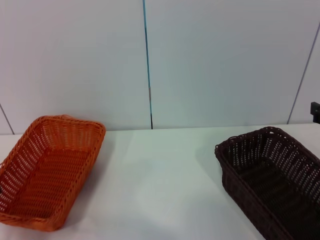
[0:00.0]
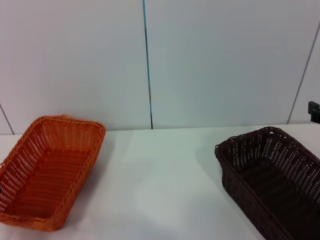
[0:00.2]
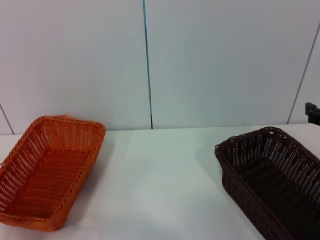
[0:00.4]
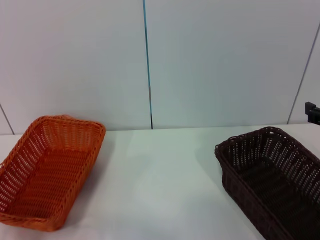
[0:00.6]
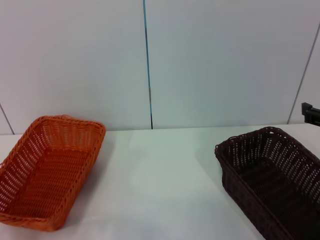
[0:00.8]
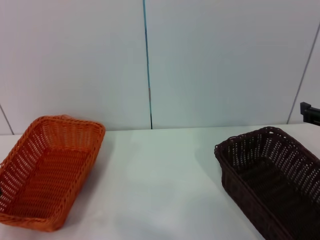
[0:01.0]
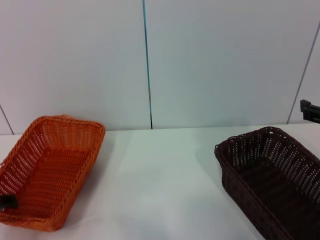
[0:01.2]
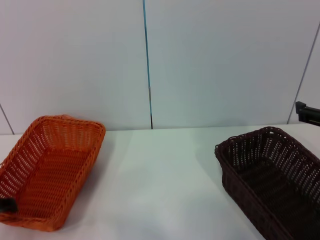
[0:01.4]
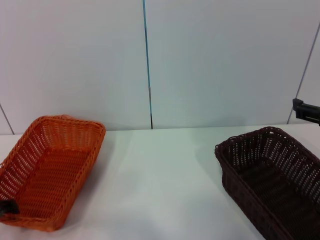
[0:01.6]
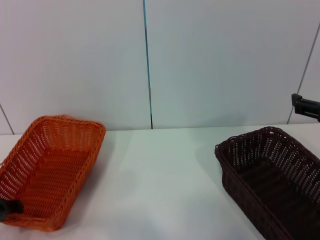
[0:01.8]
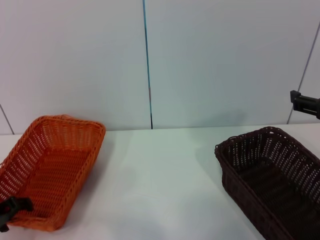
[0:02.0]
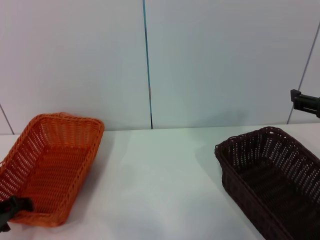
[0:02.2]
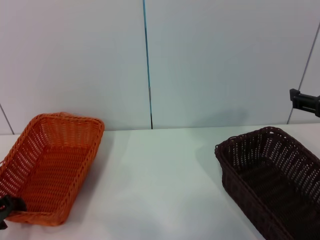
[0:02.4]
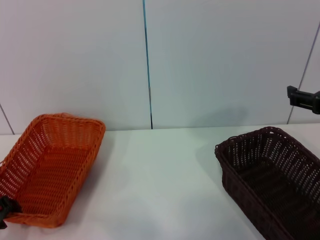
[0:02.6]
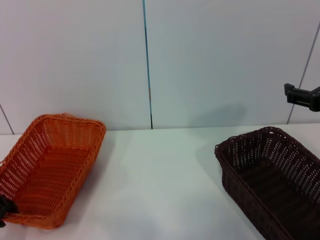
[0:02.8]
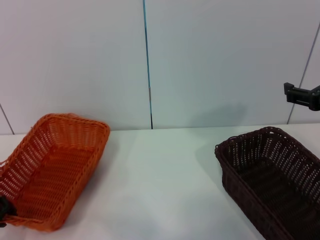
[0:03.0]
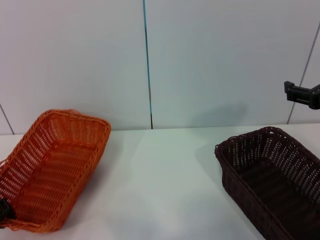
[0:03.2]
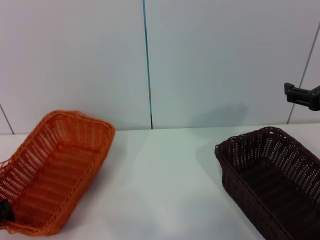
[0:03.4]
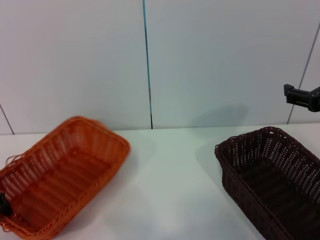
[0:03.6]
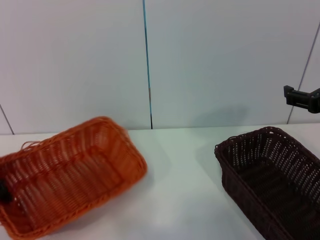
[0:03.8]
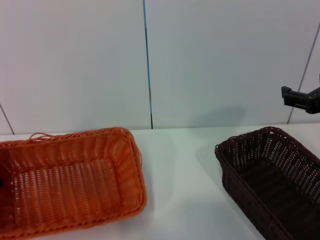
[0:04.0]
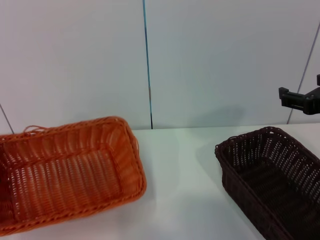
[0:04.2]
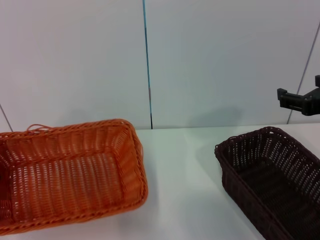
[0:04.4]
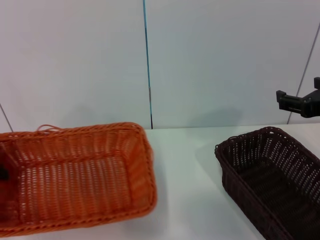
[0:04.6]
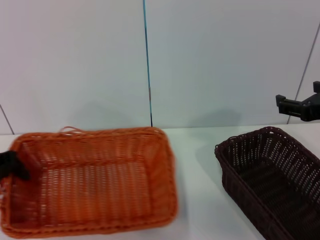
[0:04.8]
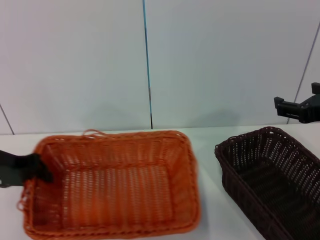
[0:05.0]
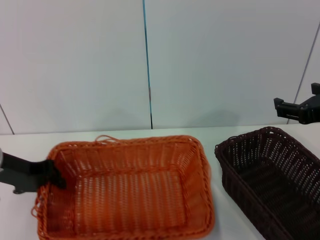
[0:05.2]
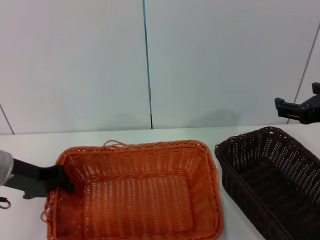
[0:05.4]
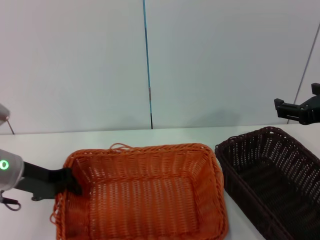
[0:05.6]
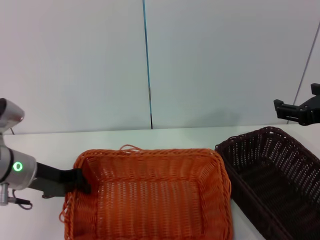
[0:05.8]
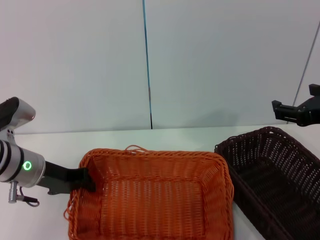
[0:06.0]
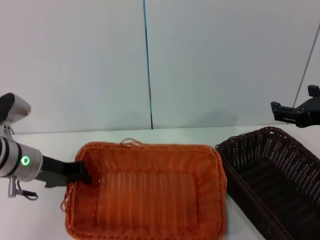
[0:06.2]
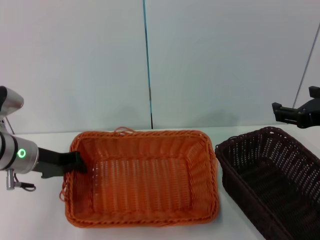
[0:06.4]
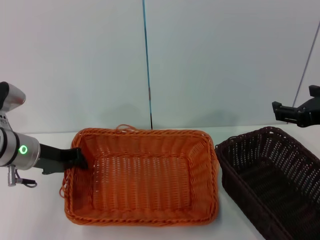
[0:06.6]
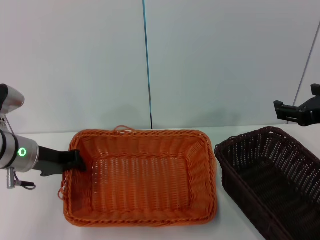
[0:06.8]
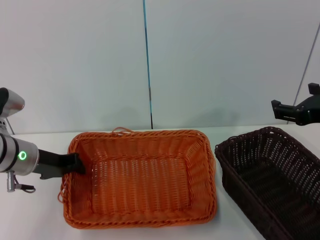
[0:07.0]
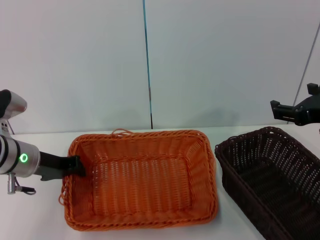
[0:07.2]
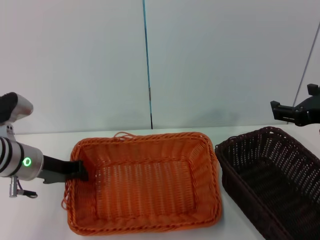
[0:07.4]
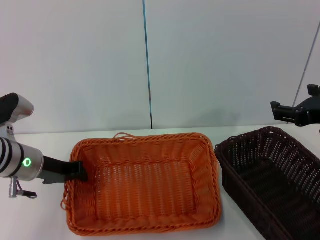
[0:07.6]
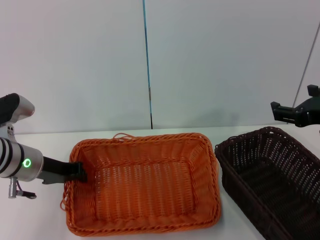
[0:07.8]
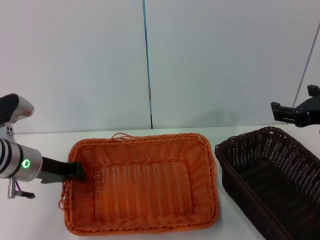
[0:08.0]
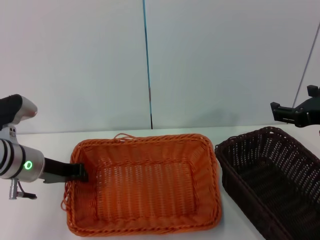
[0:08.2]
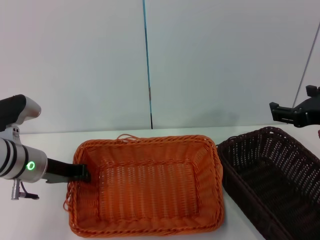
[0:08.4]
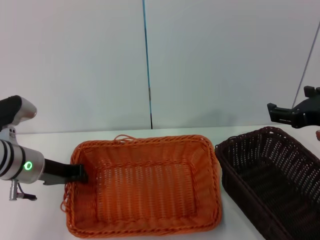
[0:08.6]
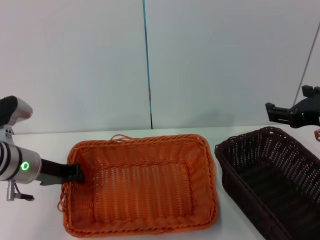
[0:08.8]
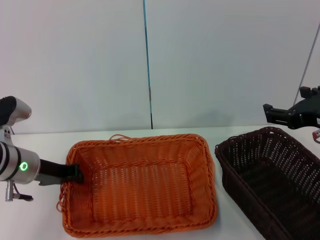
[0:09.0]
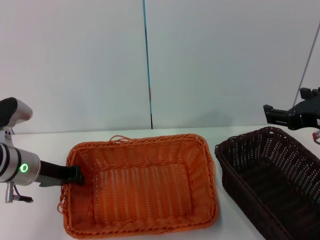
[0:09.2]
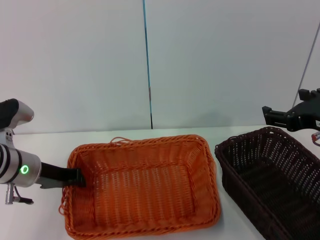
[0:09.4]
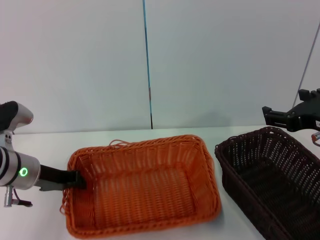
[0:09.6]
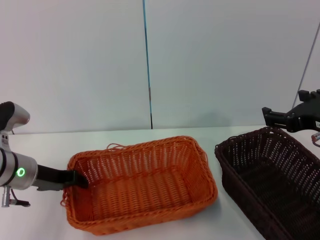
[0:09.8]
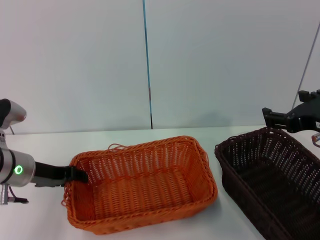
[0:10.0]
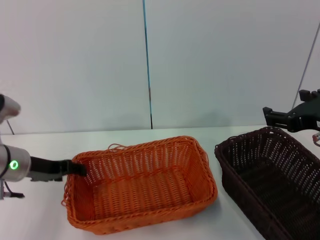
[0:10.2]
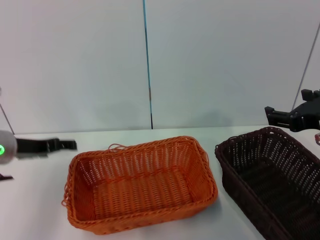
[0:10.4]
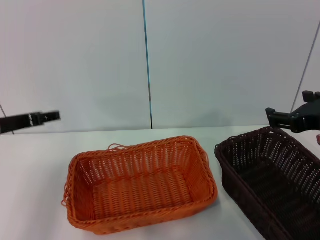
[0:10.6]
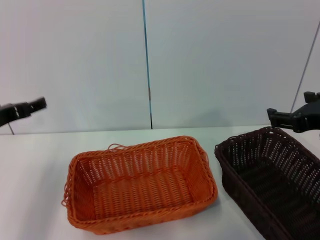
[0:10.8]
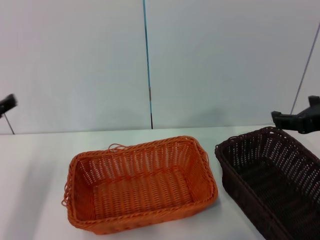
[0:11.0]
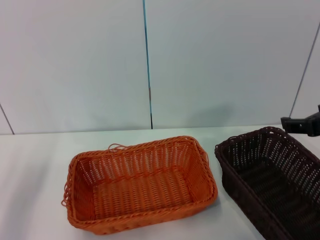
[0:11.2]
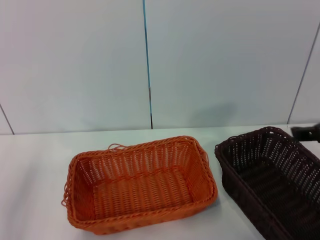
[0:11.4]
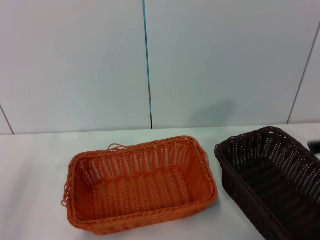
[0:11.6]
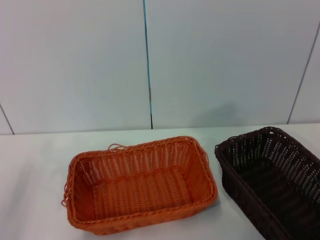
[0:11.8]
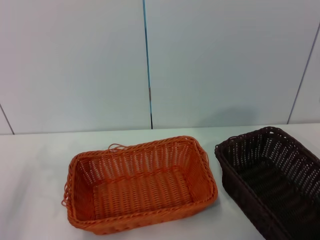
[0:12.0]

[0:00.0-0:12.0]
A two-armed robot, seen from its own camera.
Step, 0:00.0 to 0:03.8: Pick up the light basket with the left gripper.
Step, 0:04.0 to 0:09.8: Place the light basket in the center of view with the left gripper.
0:01.6 to 0:03.0: The left gripper closes up.
0:03.0 to 0:04.4: The left gripper shifts some 10 cm upward.
0:04.4 to 0:06.0: The left gripper moves to the right, roughly 15 cm.
0:06.0 to 0:09.0: The grippers move only a little.
0:09.0 to 0:10.4: The left gripper opens.
0:10.4 to 0:12.0: The left gripper goes roughly 10 cm backward and to the left.

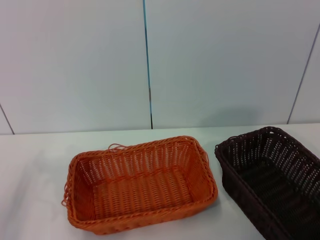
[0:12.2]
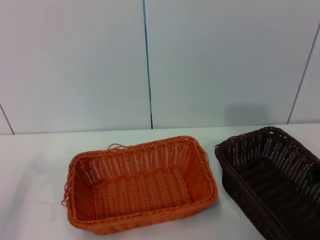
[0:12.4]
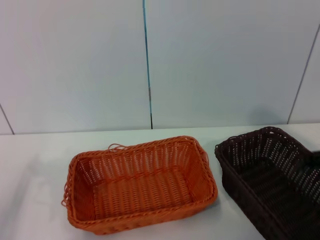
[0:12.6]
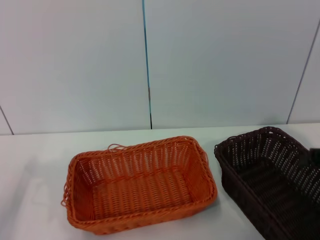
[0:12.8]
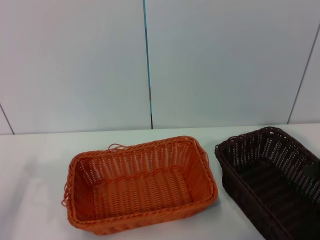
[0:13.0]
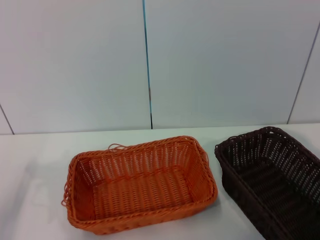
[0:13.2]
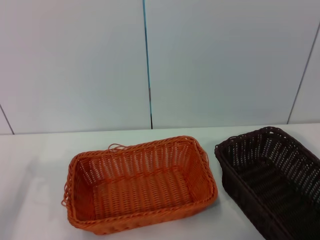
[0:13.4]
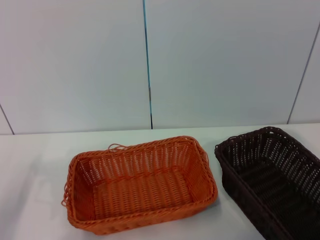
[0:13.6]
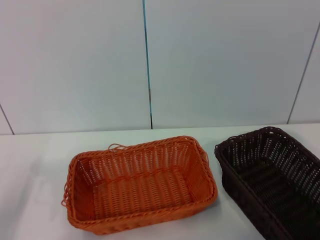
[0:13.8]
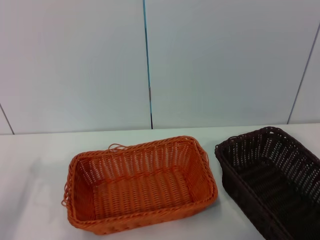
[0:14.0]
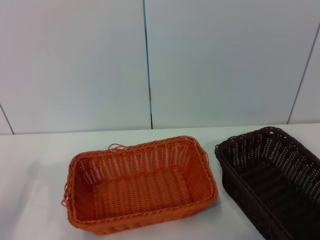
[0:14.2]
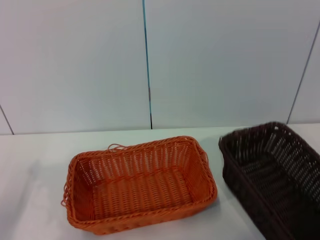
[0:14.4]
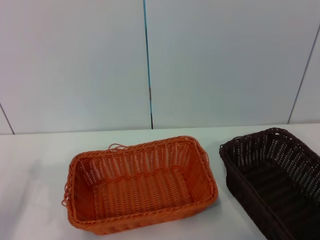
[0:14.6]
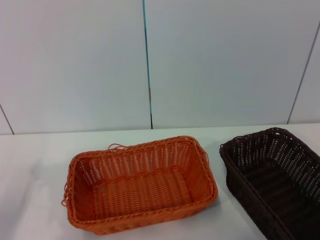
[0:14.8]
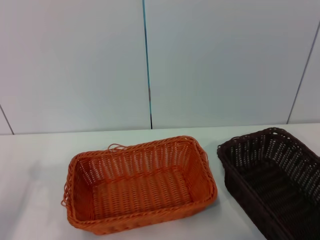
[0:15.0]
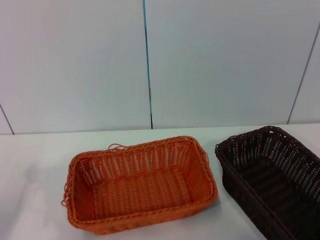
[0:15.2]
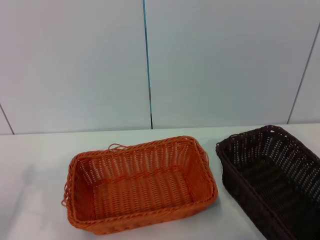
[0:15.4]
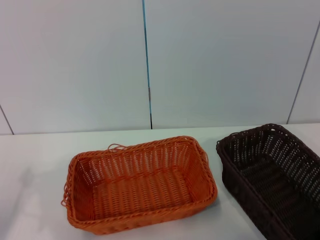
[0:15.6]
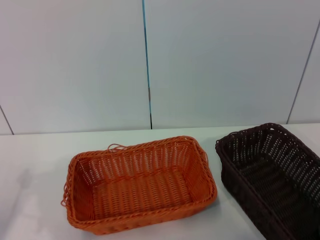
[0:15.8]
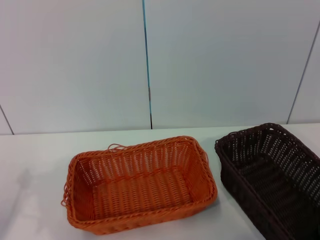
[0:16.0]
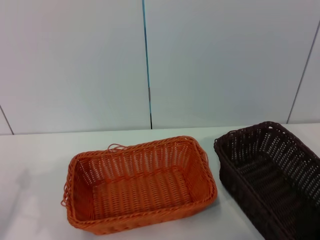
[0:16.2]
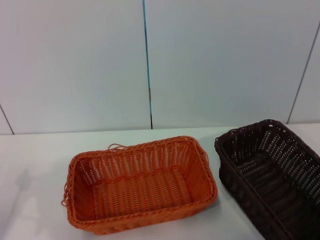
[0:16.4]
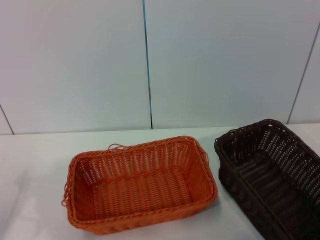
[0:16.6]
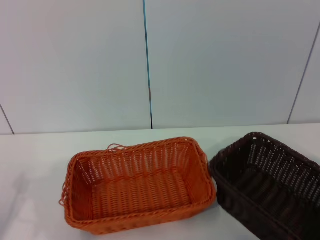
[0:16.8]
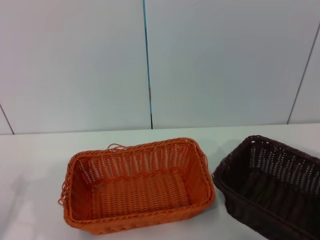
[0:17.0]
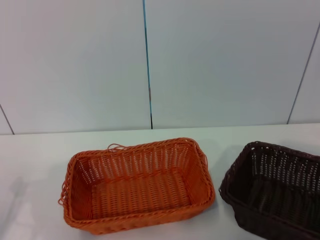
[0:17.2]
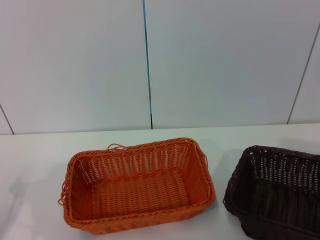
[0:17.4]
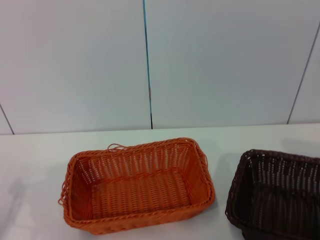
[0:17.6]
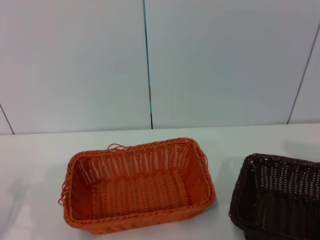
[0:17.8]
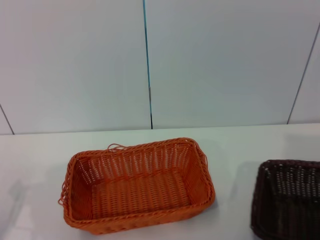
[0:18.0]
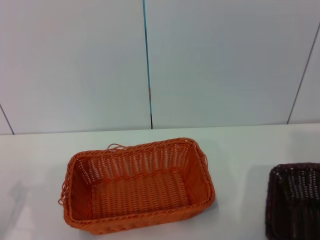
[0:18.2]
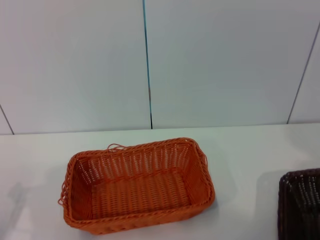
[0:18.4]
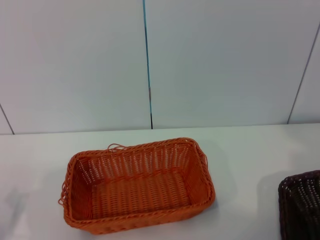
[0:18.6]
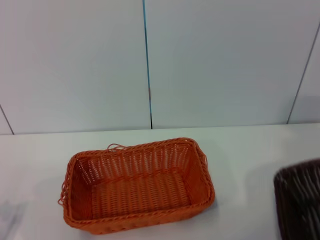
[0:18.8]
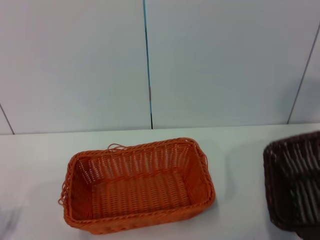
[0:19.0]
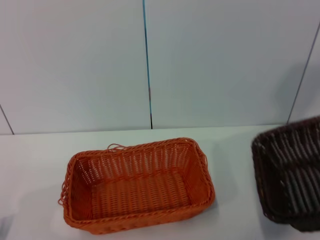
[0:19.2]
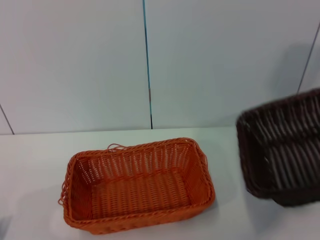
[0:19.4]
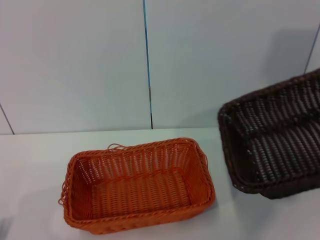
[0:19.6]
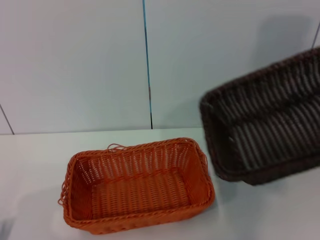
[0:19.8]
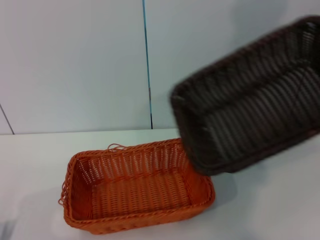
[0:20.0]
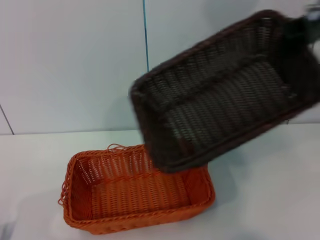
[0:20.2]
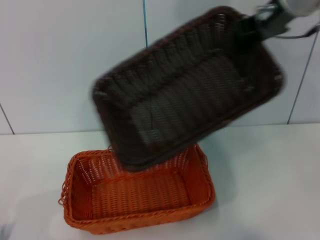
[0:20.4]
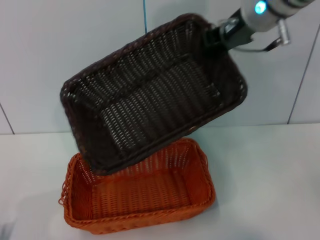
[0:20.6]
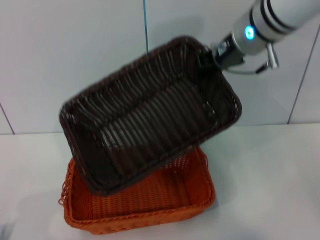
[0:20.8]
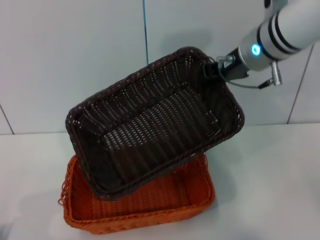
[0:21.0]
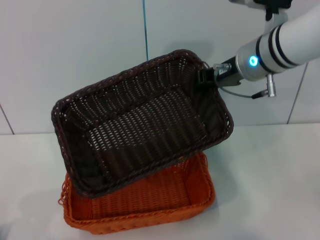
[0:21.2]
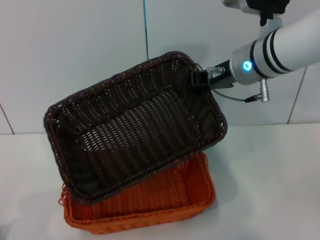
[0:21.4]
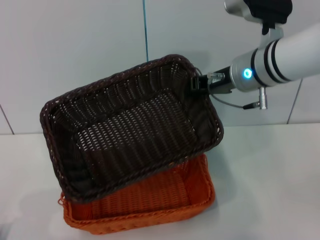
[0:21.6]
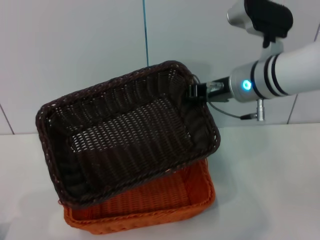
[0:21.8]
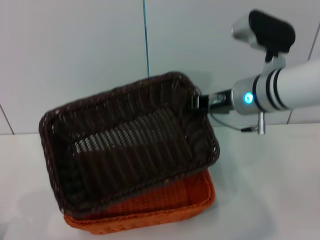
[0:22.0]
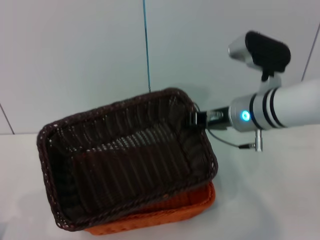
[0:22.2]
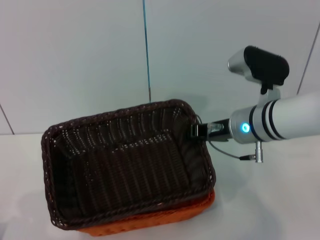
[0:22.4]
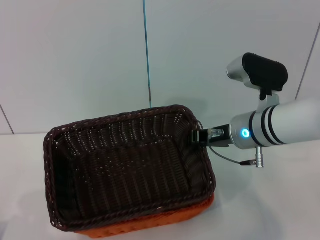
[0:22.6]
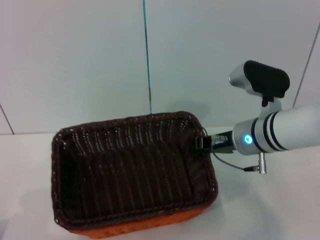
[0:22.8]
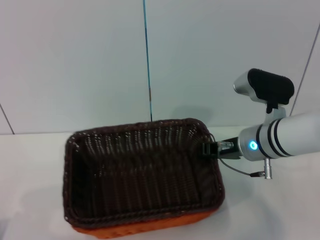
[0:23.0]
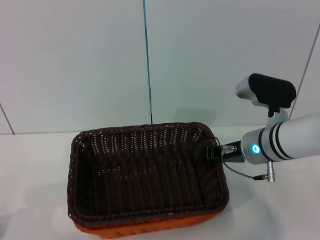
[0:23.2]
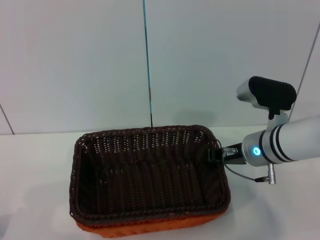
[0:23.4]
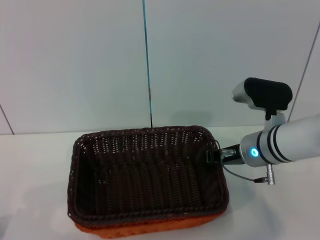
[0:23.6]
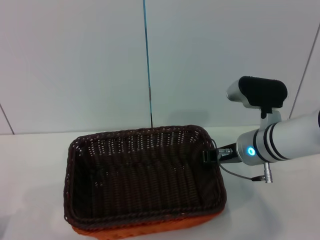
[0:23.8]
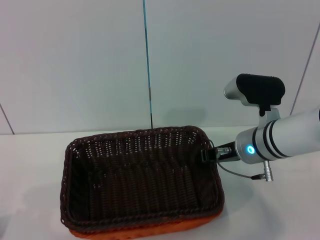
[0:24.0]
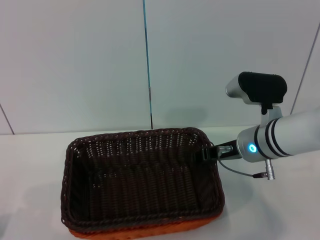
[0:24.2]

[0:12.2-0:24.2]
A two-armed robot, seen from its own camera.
Step, 0:12.2 to 0:18.4: Pick up the dark basket with the right gripper.
0:15.2 to 0:16.6: The right gripper closes up.
0:16.6 to 0:18.2: The right gripper shifts about 10 cm upward and to the right, and closes up.
0:18.2 to 0:19.8: The right gripper moves upward, to the left and forward, approximately 25 cm; the left gripper goes some 5 cm downward.
0:19.8 to 0:21.2: The right gripper is displaced to the left and downward by roughly 20 cm.
0:21.2 to 0:22.6: The right gripper moves downward, about 10 cm.
0:22.6 to 0:24.2: The grippers move only a little.
